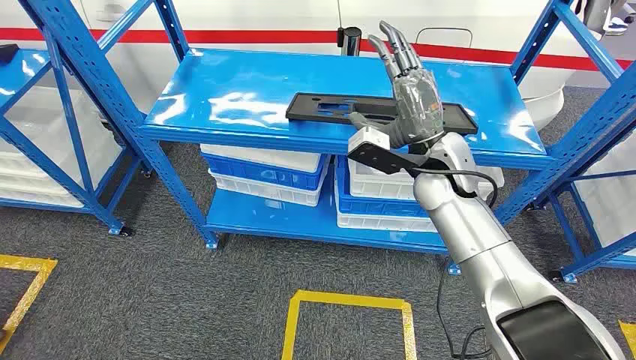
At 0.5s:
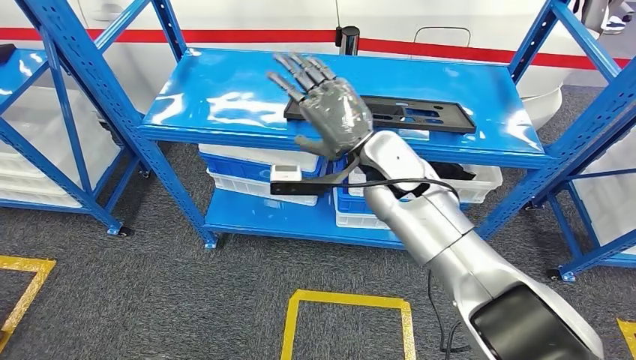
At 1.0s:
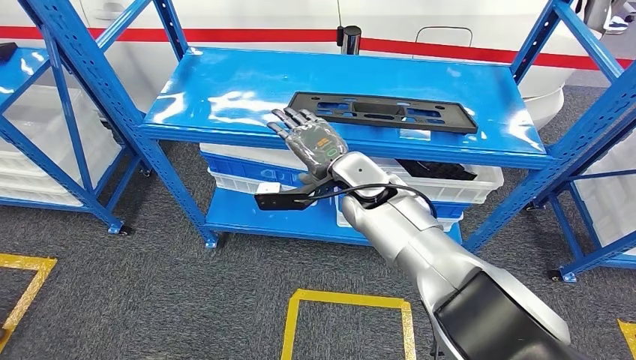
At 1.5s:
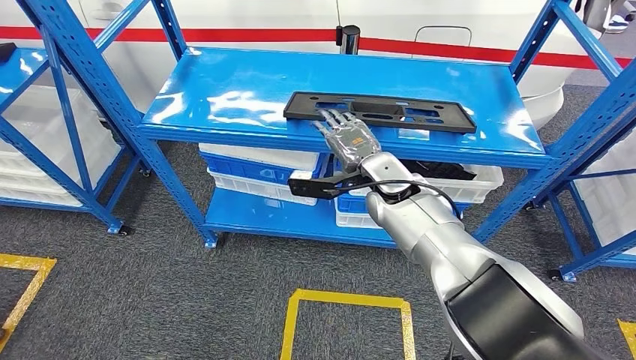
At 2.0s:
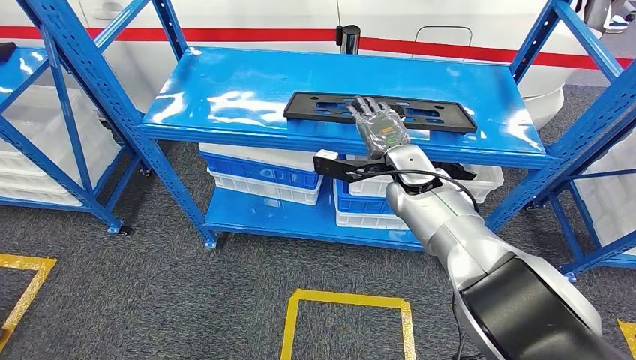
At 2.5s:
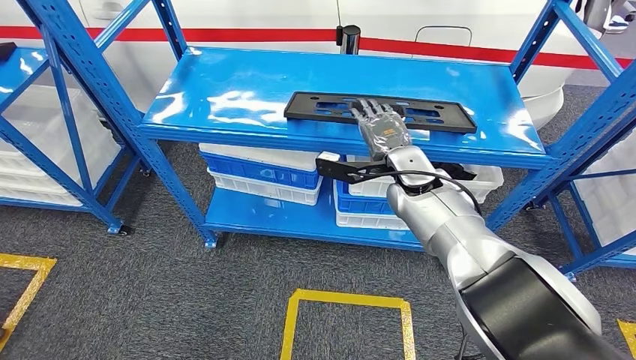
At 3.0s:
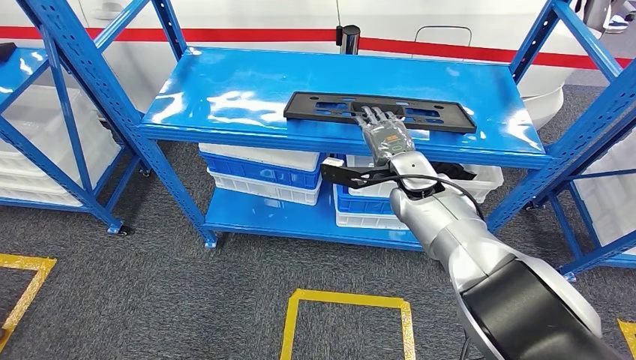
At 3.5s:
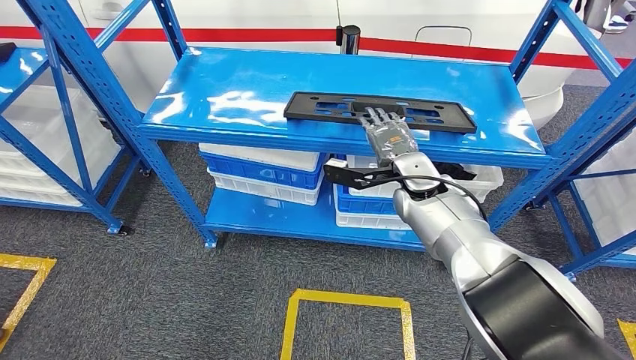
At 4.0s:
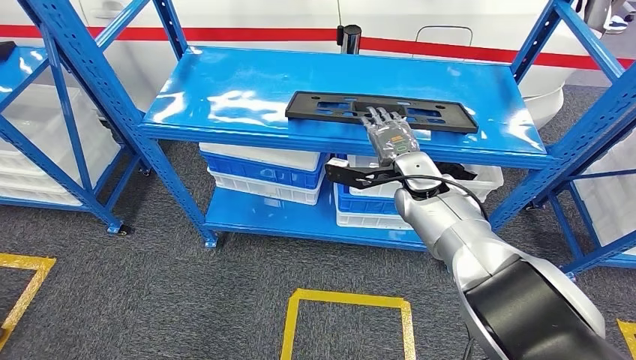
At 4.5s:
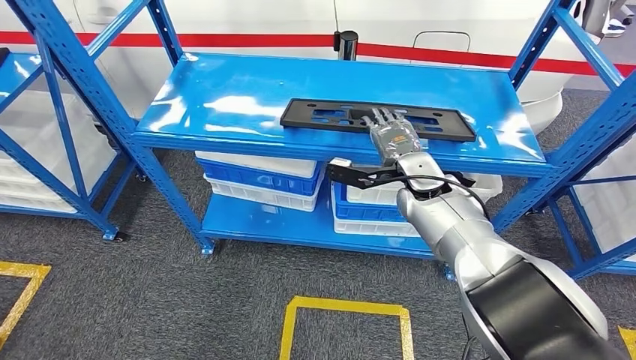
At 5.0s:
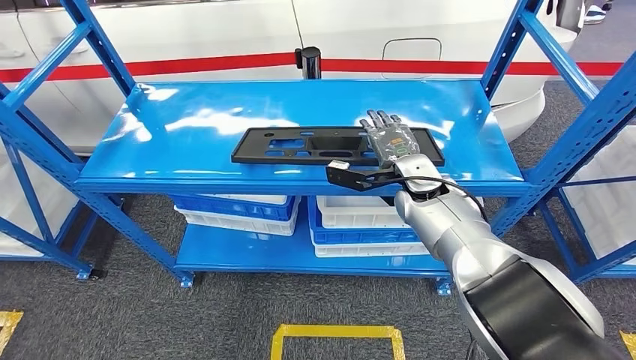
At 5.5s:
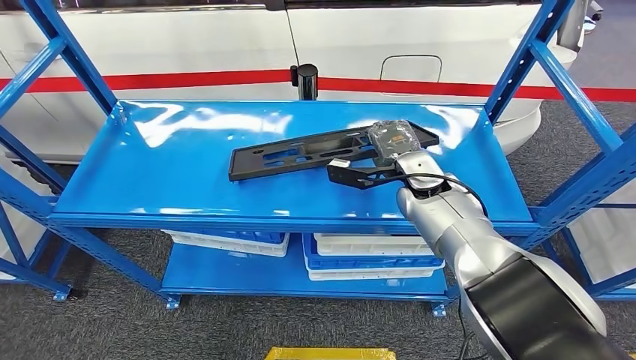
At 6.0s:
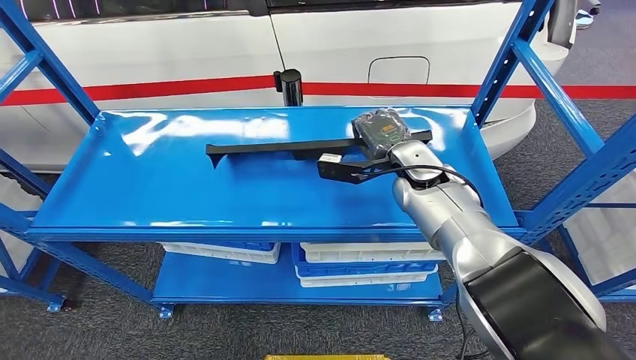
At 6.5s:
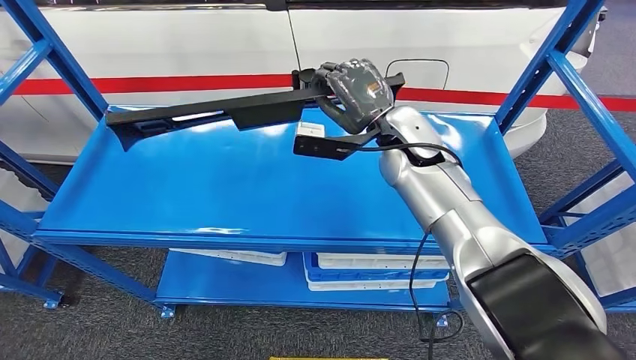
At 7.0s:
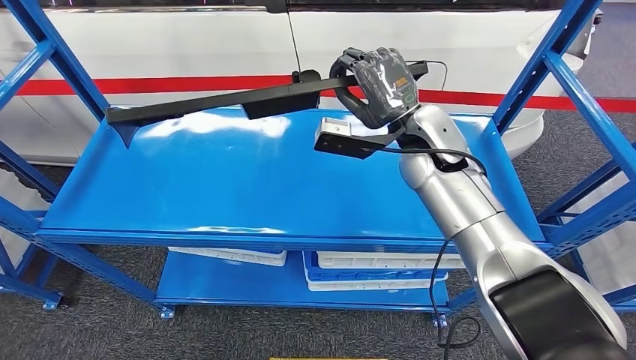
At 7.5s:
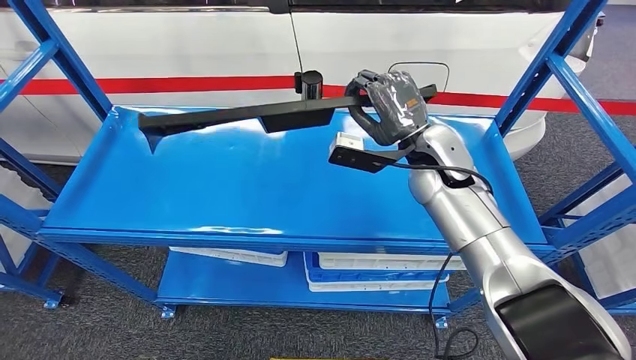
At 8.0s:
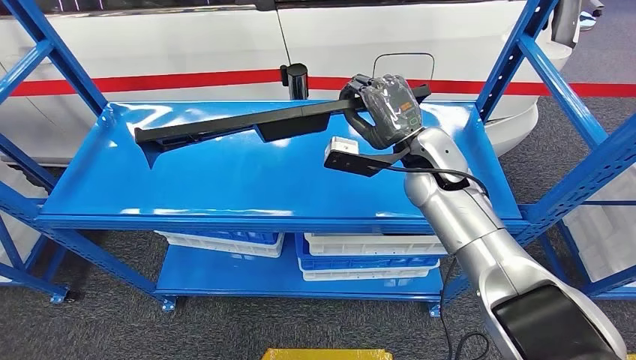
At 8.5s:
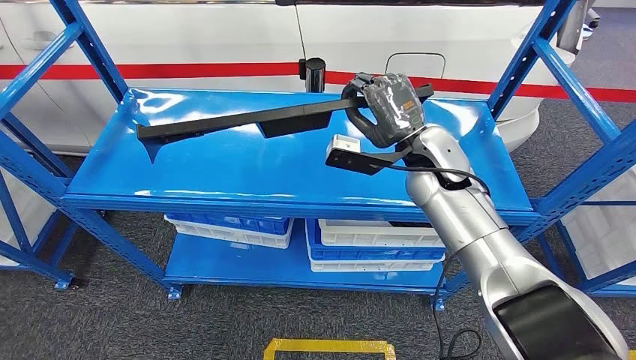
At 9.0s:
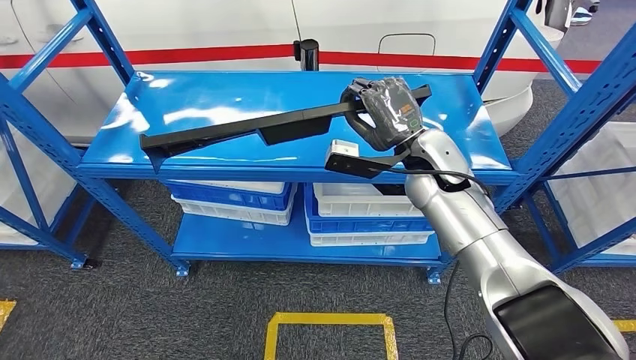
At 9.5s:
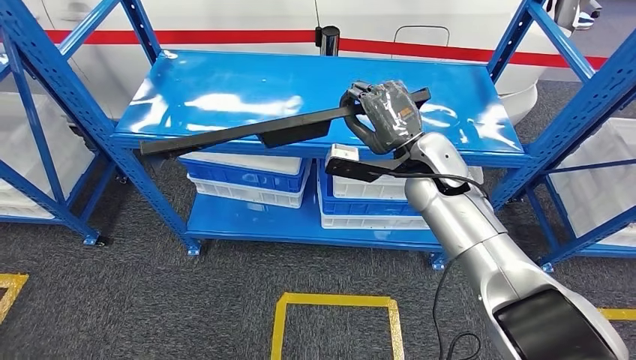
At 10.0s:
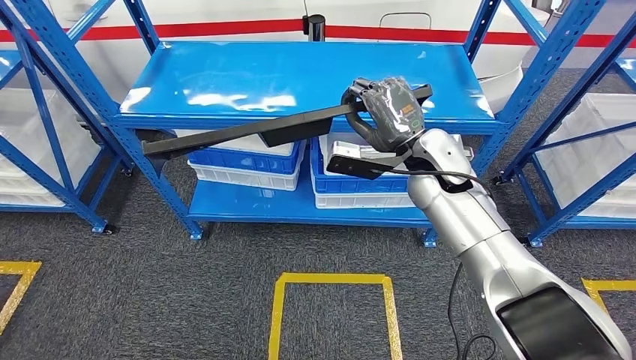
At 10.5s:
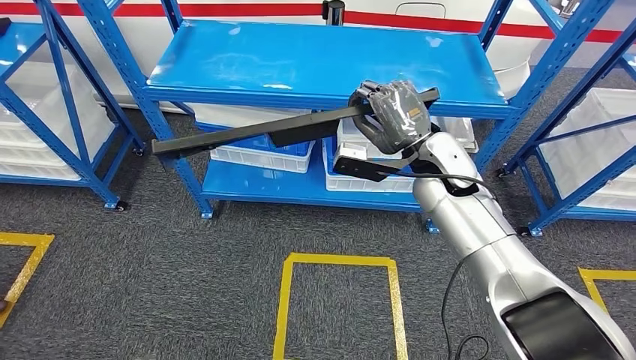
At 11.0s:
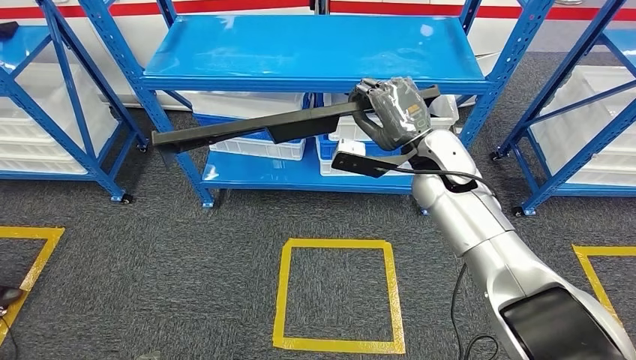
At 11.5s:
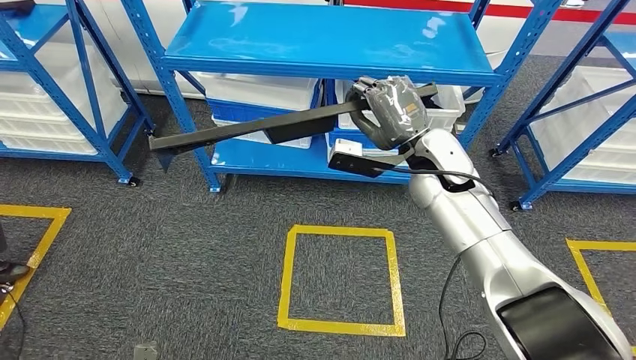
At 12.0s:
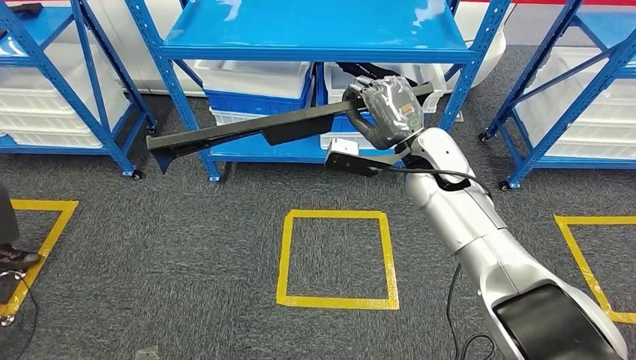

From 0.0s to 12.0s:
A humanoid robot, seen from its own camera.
Step, from 0.0s to 6.5s: Pick up the large material from the shelf.
From 2.0s to 4.0s: There are only small adjustments of the hands.

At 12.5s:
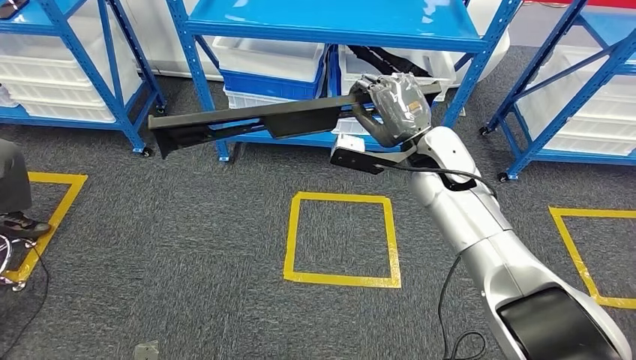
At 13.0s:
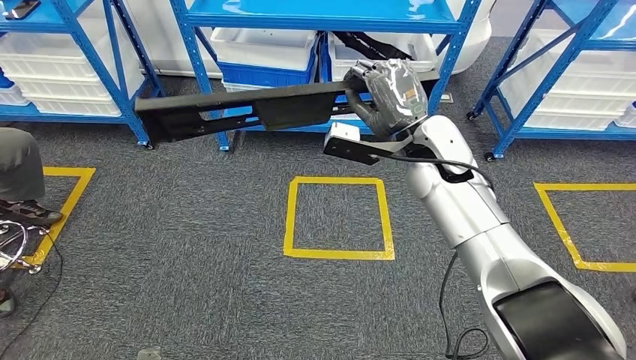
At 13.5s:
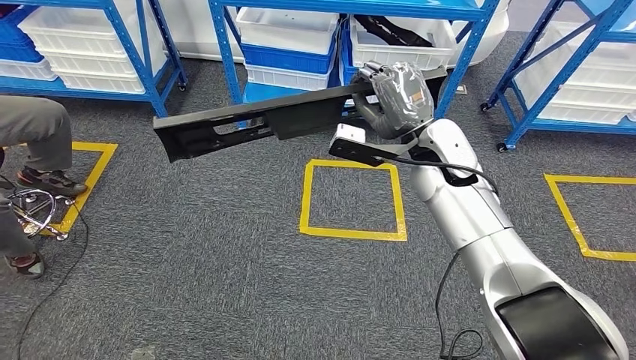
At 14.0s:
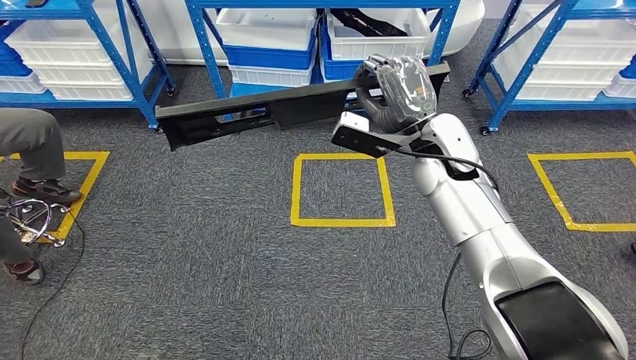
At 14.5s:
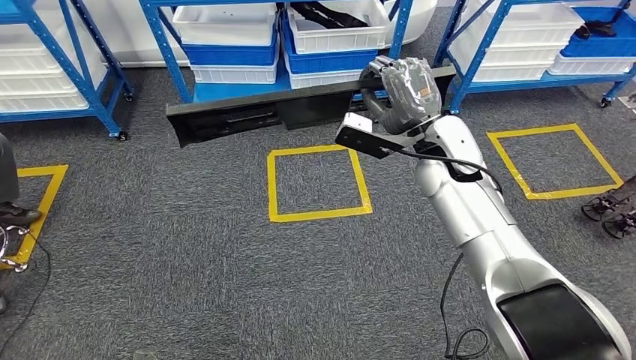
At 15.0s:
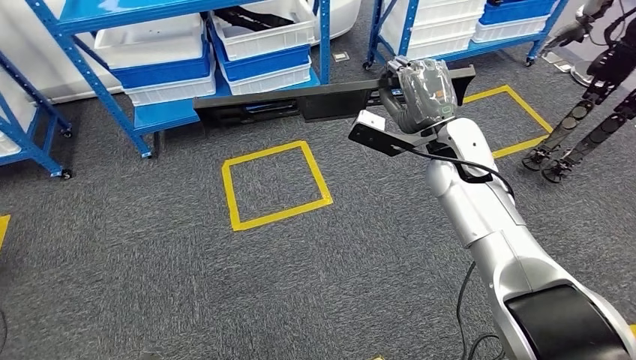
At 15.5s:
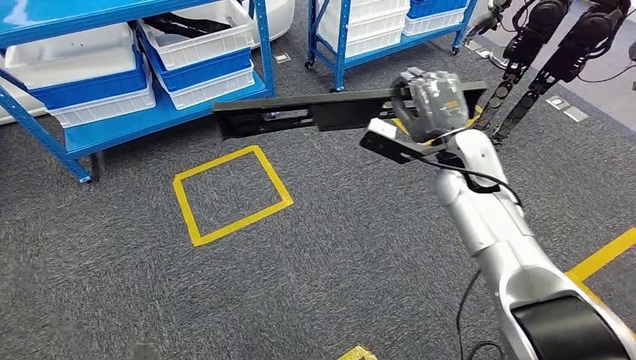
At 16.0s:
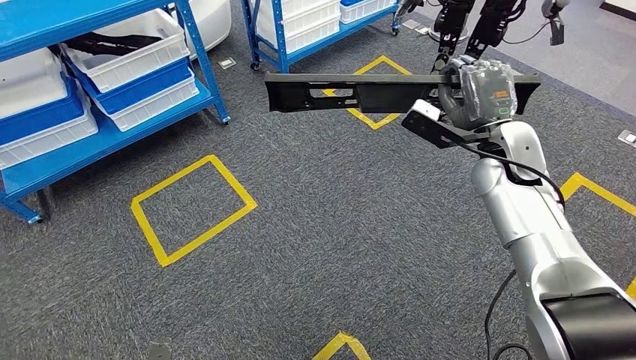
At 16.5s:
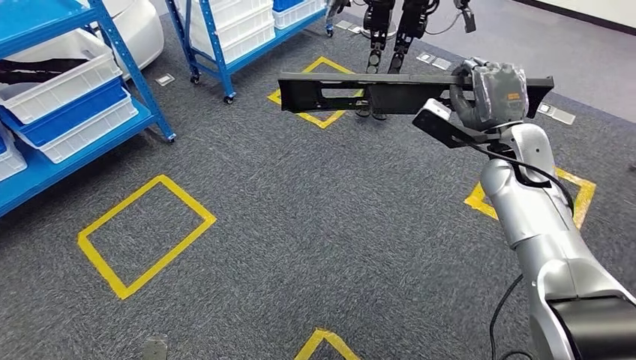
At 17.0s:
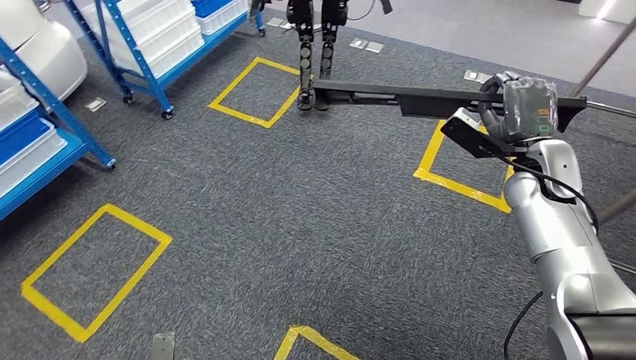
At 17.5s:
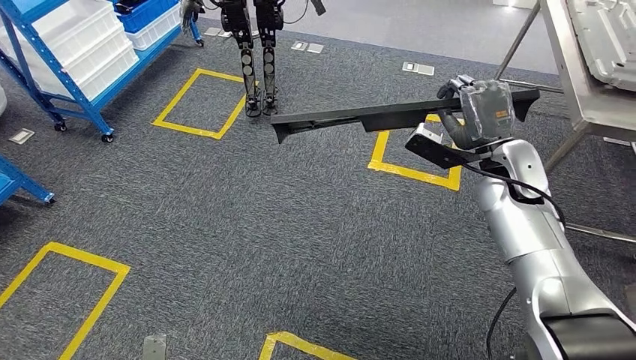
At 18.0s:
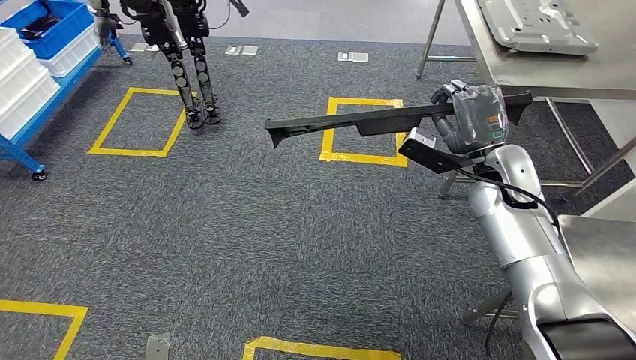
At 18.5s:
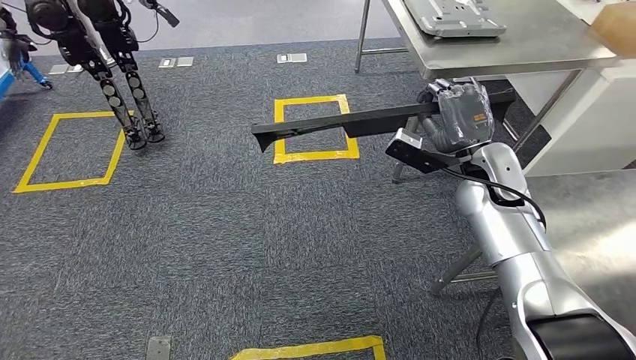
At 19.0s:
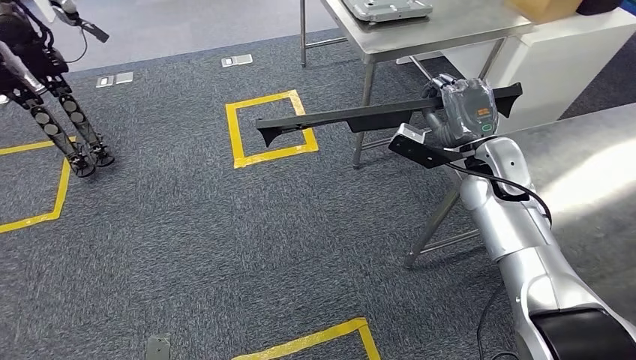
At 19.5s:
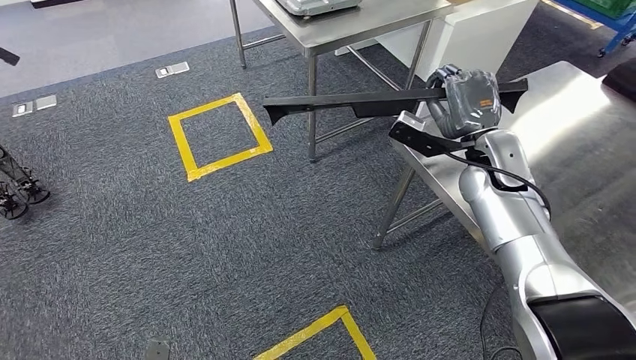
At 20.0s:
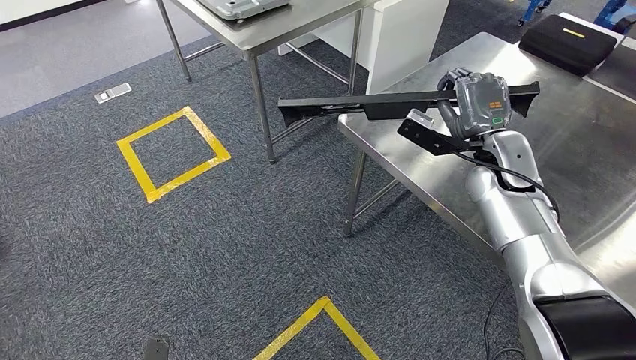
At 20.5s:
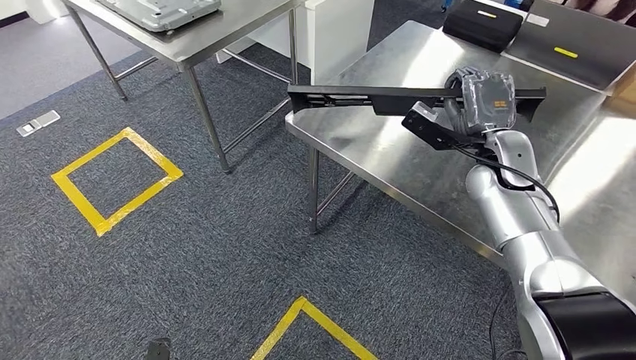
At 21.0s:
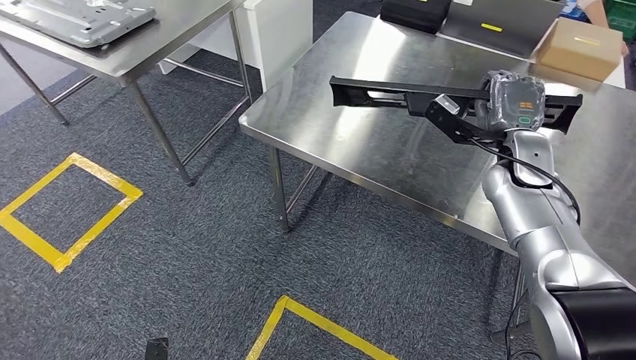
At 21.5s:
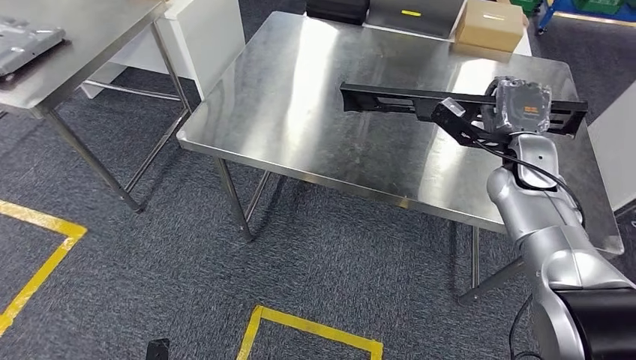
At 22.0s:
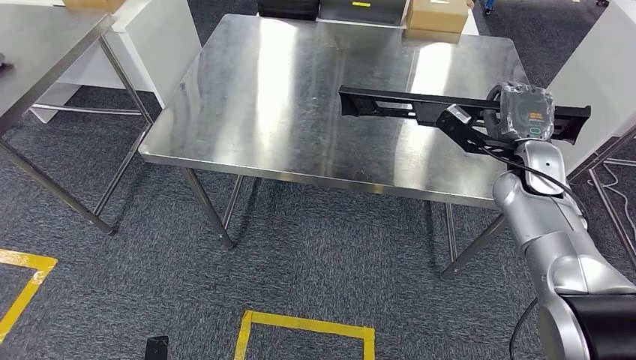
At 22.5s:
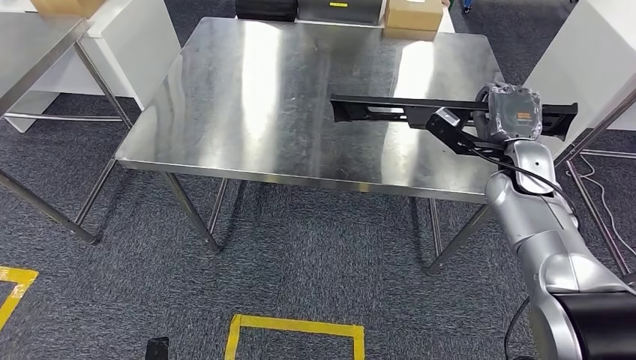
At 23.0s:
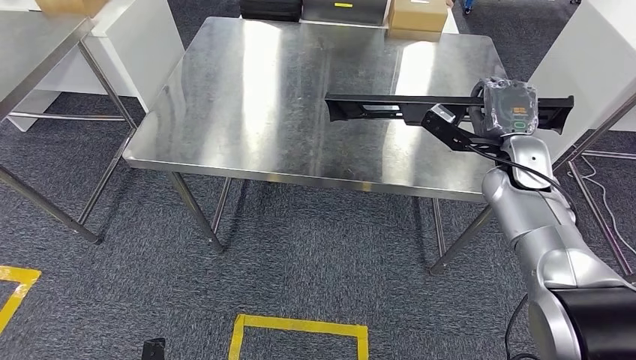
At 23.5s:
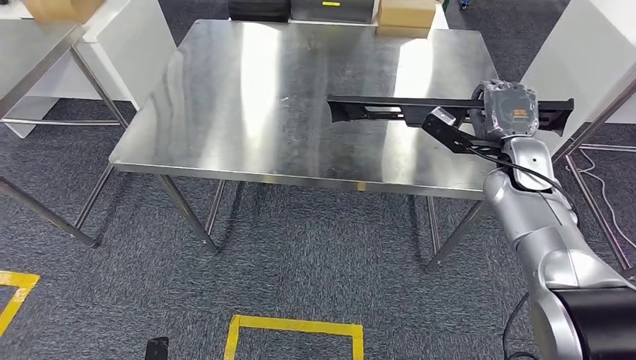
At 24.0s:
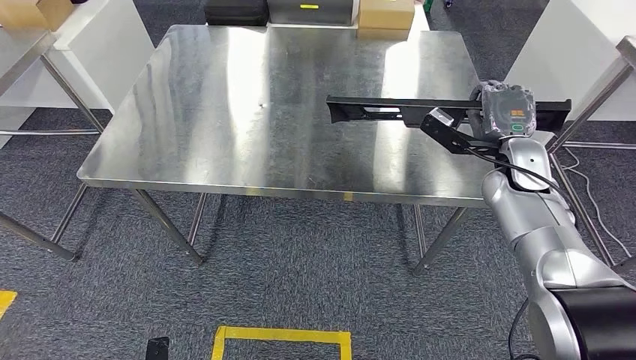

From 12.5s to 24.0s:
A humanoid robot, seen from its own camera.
Step, from 12.5s to 21.5s: Move the large material to the workbench.
